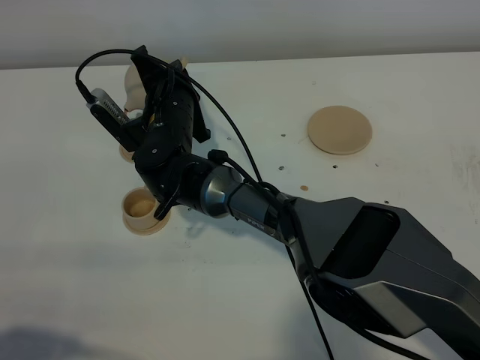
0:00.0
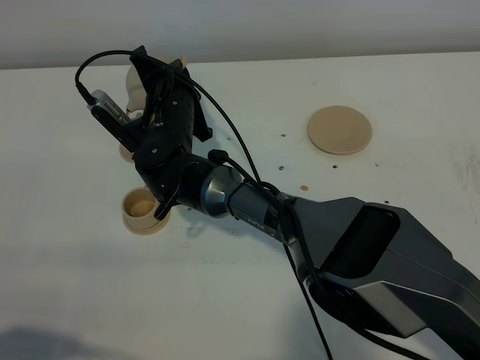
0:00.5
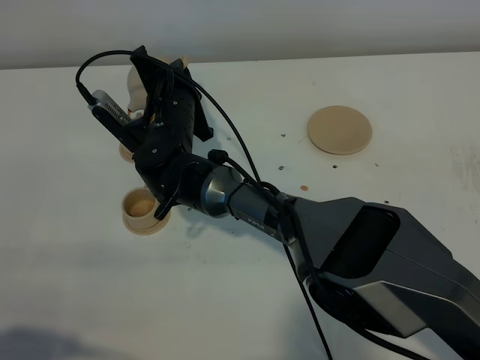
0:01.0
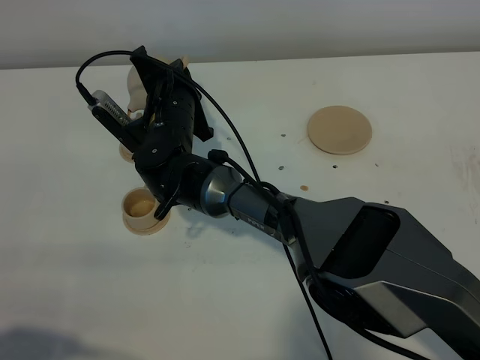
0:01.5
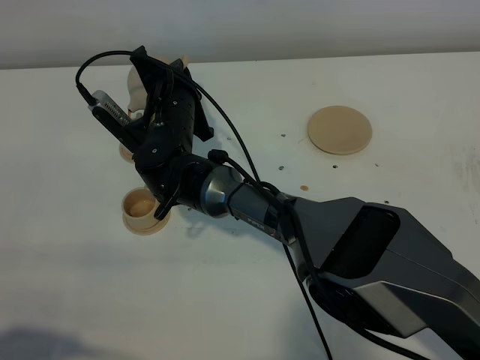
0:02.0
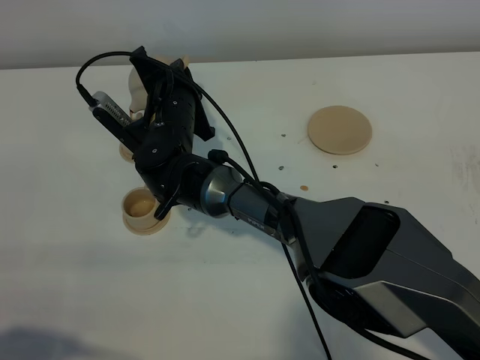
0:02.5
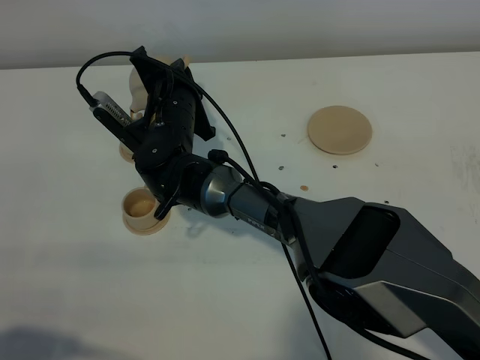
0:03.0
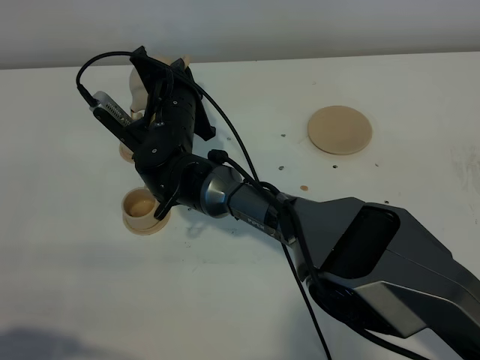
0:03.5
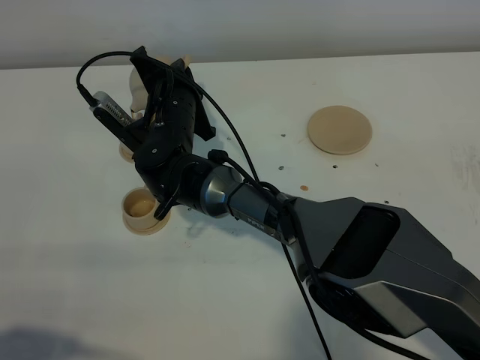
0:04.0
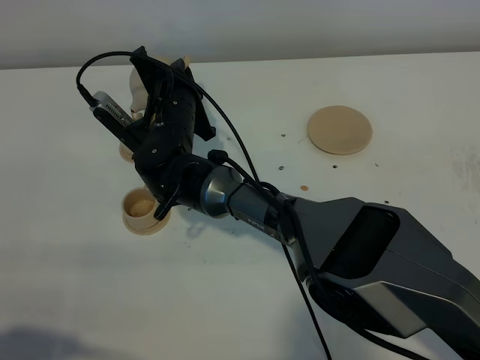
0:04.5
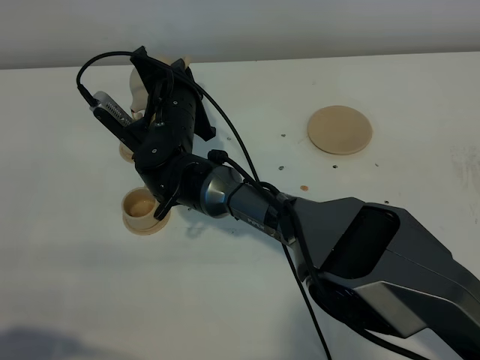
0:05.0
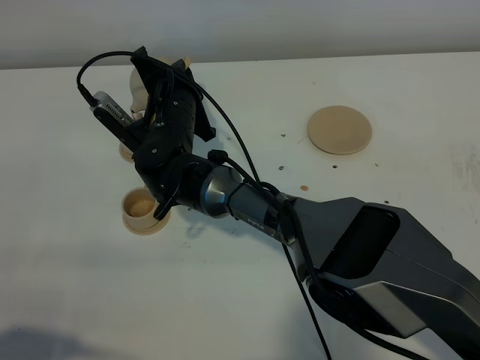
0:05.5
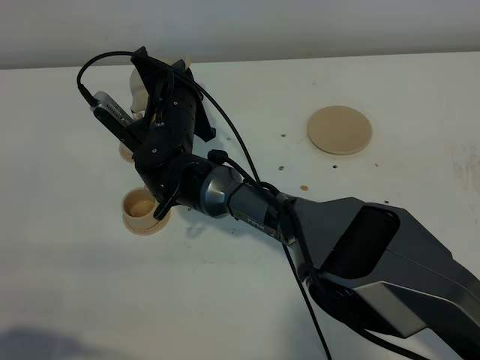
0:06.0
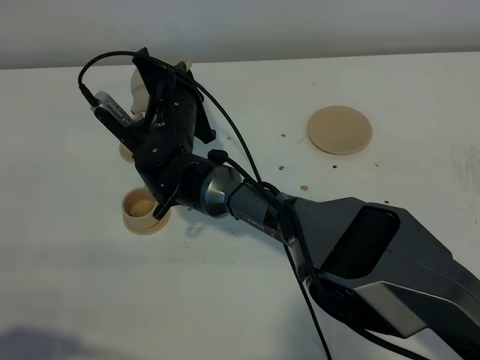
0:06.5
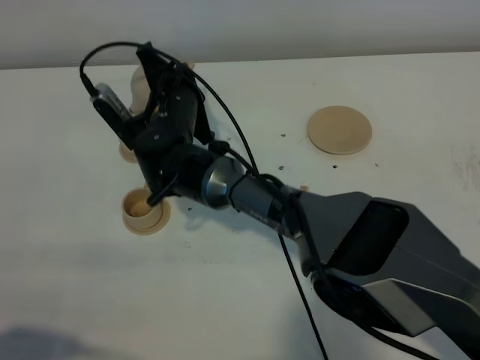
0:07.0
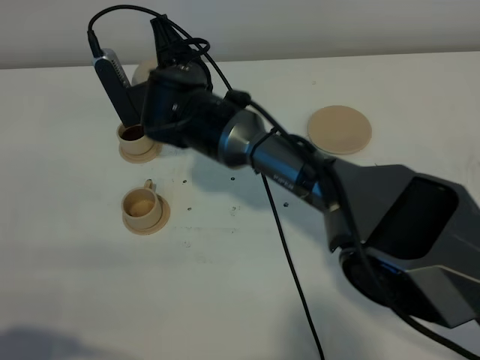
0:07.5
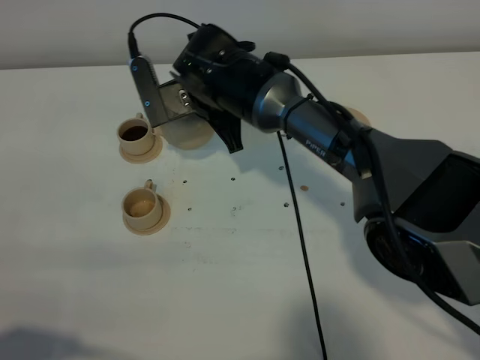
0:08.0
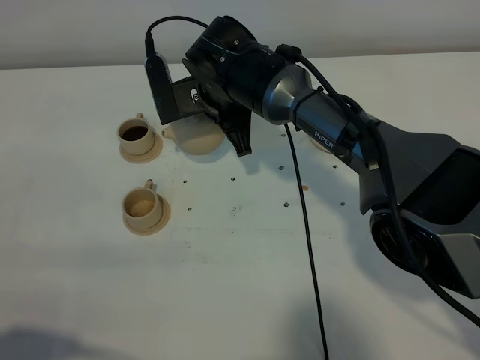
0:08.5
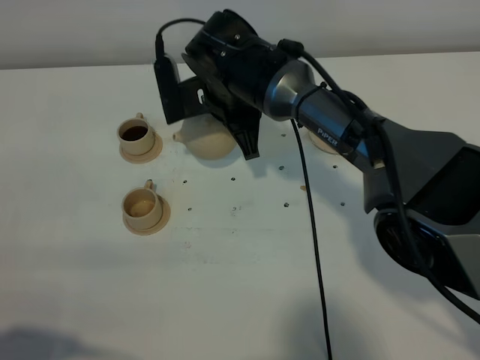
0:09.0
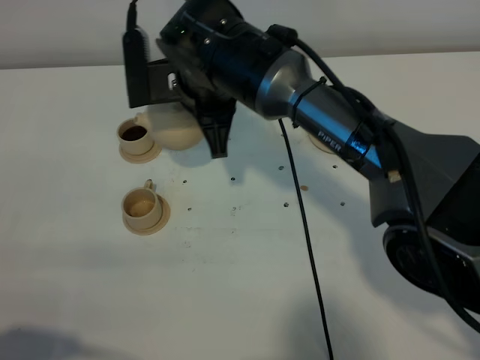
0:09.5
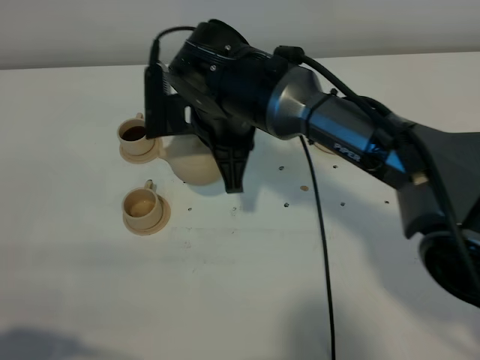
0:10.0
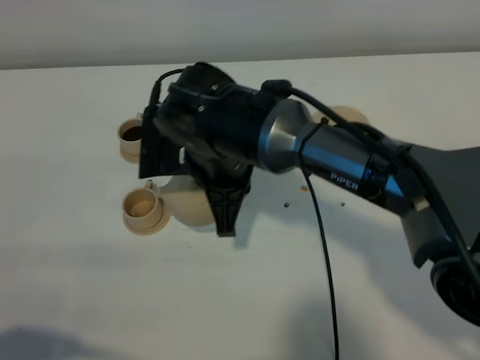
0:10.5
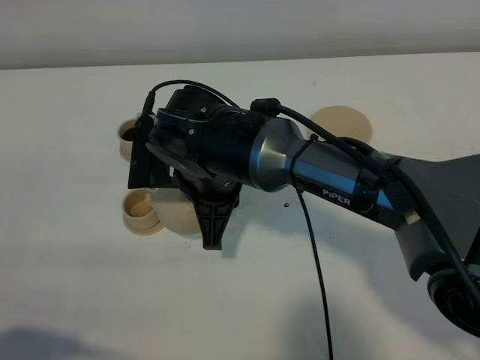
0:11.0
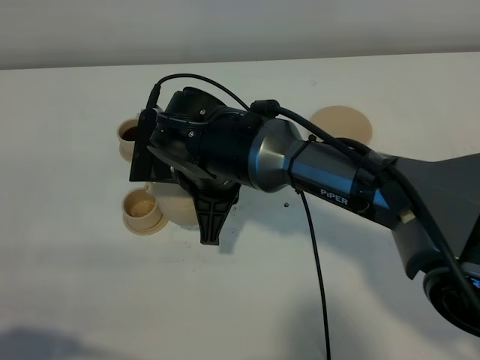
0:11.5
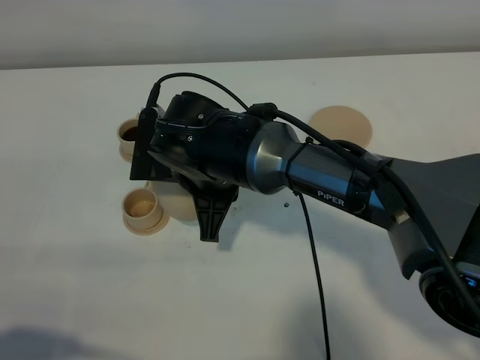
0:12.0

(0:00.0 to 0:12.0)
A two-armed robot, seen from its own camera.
Task of the whole recording: grasp the brown teapot and pour the tea into the two brown teacups one by one, put the brown teapot back in its original place.
Step, 0:00.0 - 0:07.5: Pour tea into the teacup with the right gripper.
0:00.0 - 0:06.0: Both grippers stay put.
0:06.0 - 0:08.0: The right gripper heads to the right and upward, covering approximately 10 cm.
0:08.0 - 0:10.0: The right gripper heads backward, covering some 5 cm.
0:10.0 - 0:12.0: The right gripper changes place by approximately 5 cm.

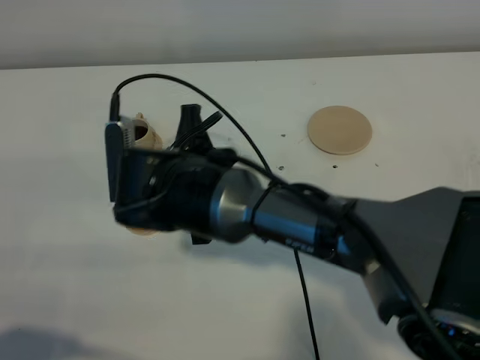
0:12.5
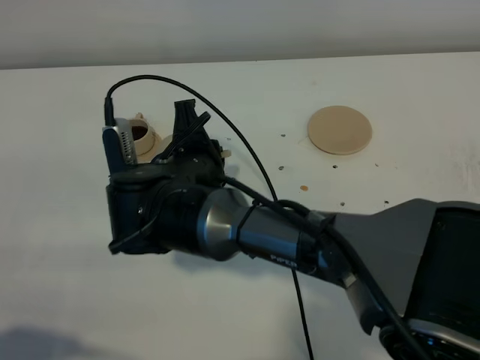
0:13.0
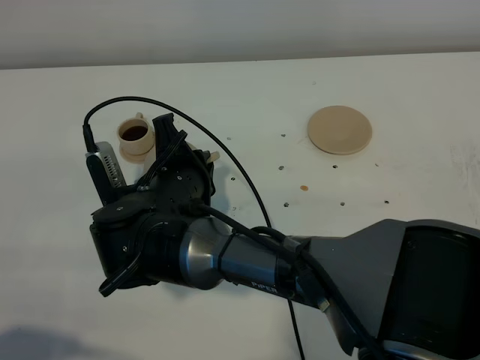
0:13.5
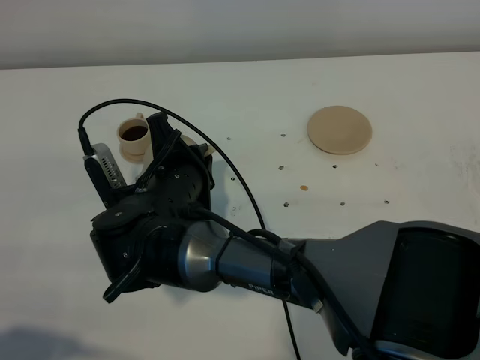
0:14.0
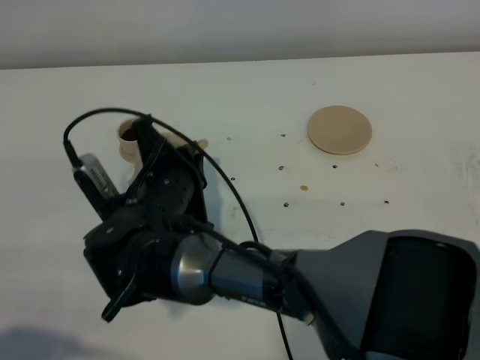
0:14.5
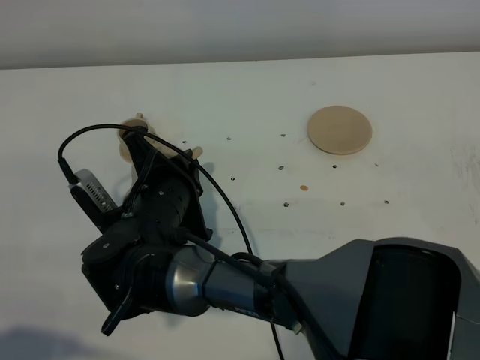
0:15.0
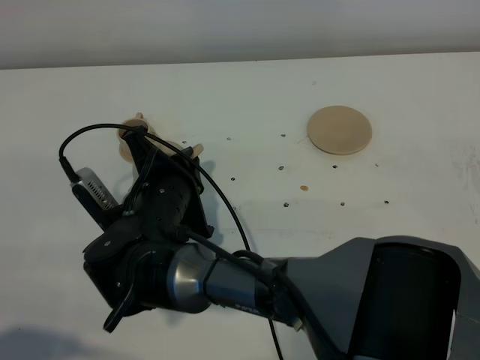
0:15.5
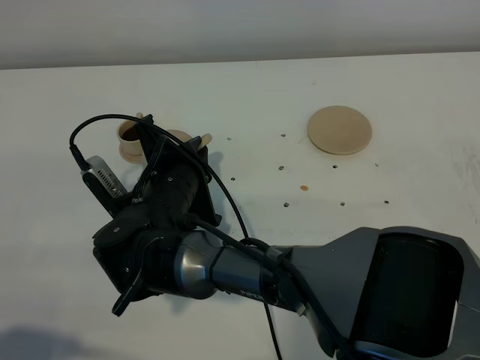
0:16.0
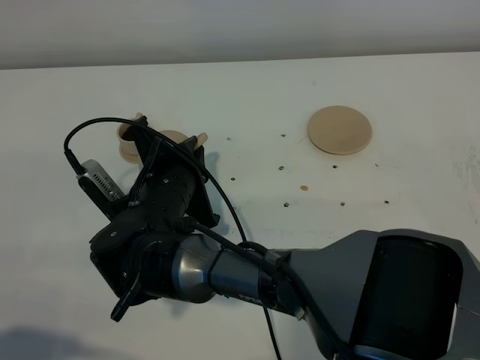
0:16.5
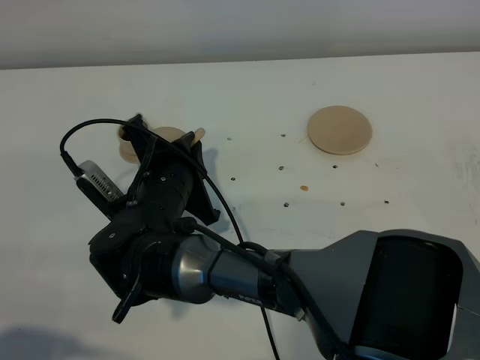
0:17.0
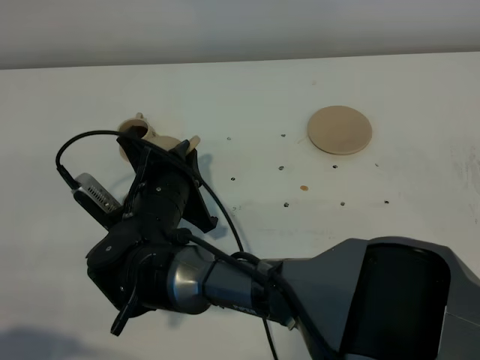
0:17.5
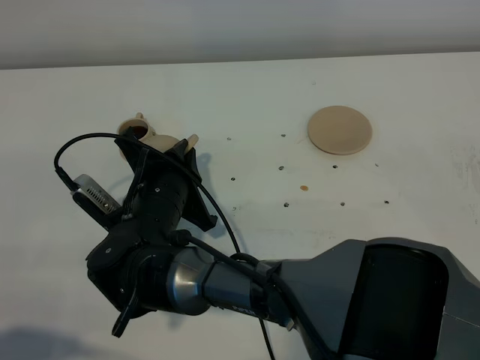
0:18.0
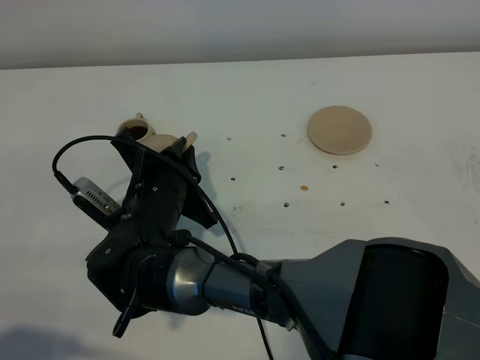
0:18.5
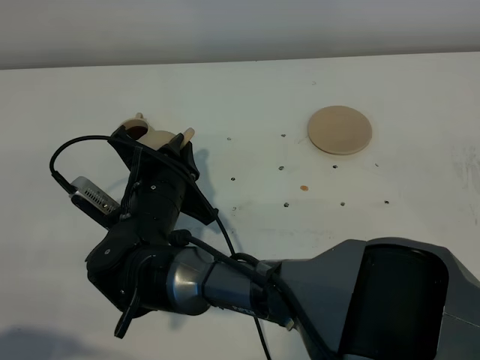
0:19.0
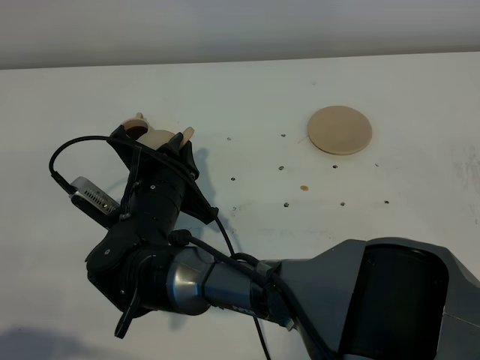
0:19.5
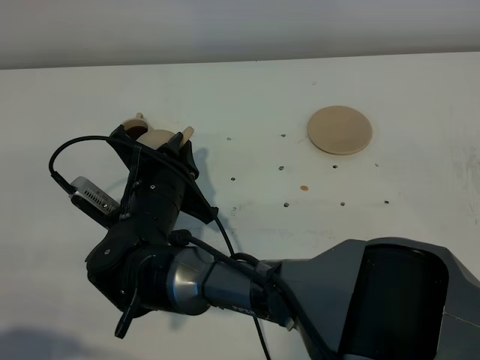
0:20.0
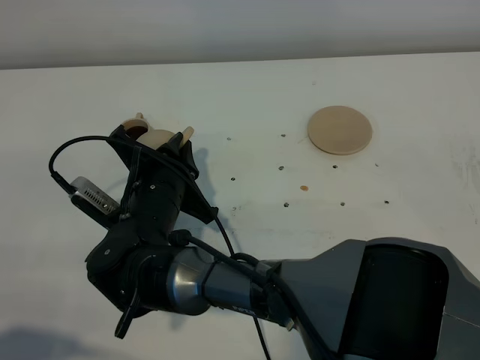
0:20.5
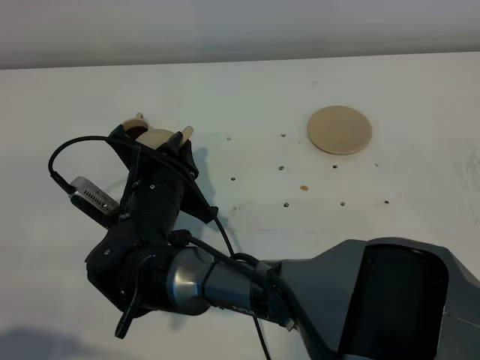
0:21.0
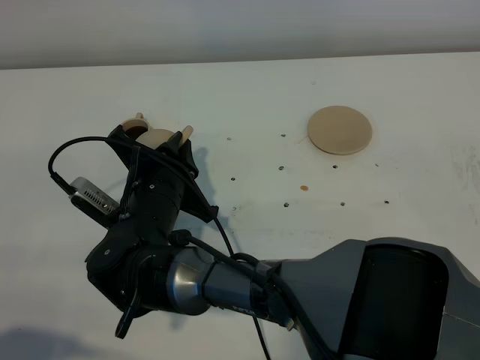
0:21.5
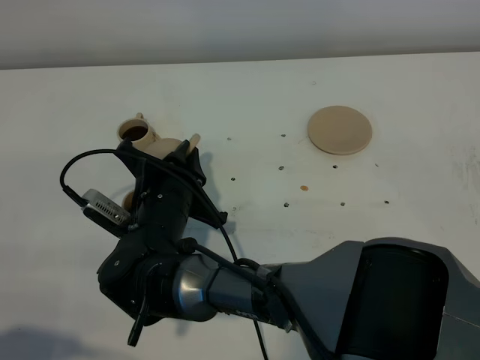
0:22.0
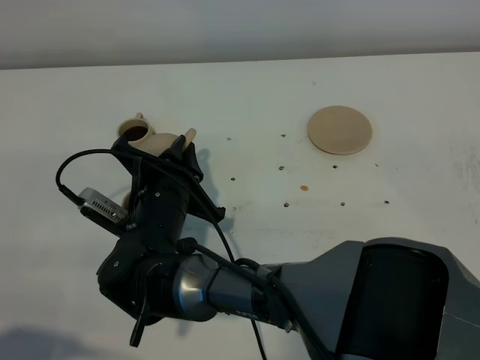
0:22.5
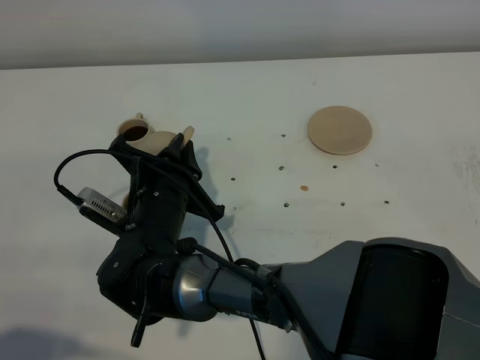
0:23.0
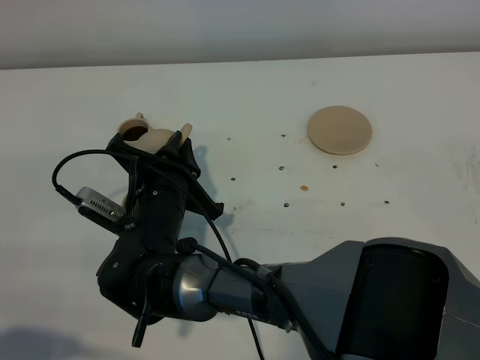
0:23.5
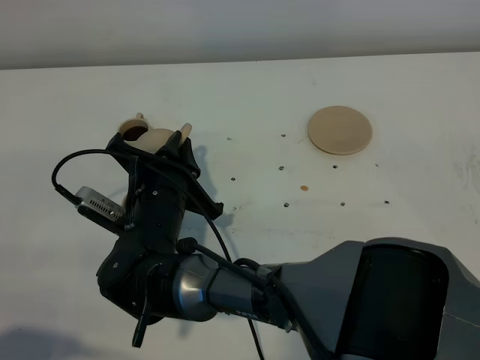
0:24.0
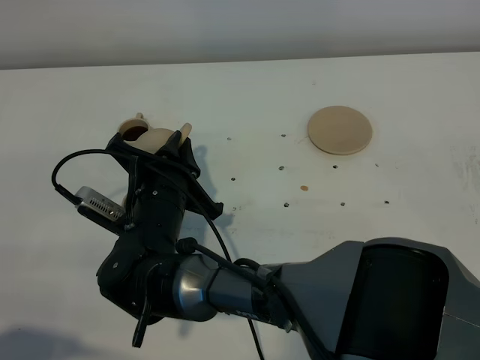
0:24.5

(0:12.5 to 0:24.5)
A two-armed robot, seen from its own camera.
Task of the whole recording: grasp the brown teapot and pour the tea into the two brown teacups one by one, put the brown teapot back in its original place.
0:14.5 - 0:18.5: The grippers stay close to where they were, moving slightly.
0:18.5 - 0:20.5: The two grippers keep their place.
0:20.5 - 0:22.5: The grippers stay close to where they were, moving slightly.
0:22.5 - 0:24.5: Neither gripper changes place.

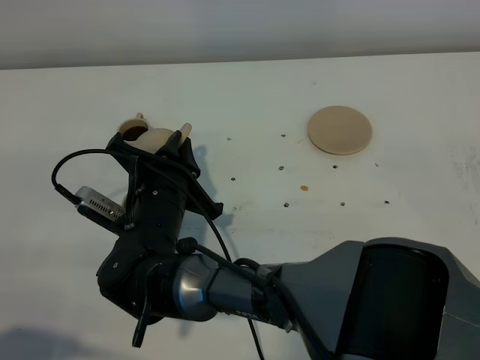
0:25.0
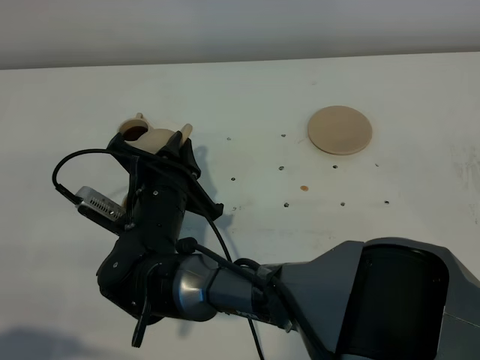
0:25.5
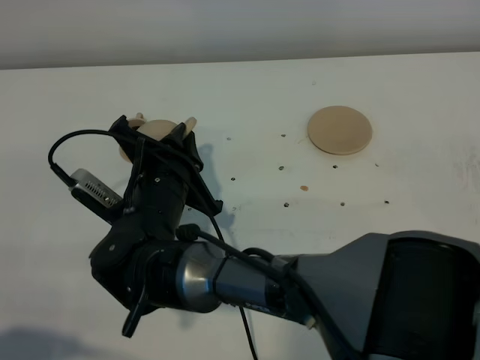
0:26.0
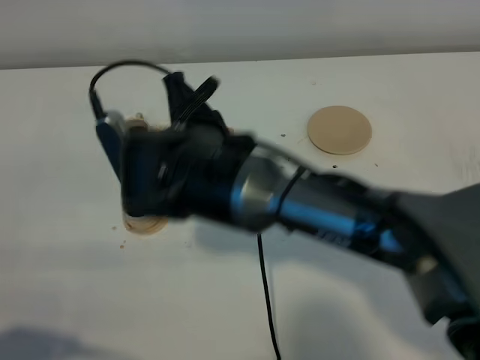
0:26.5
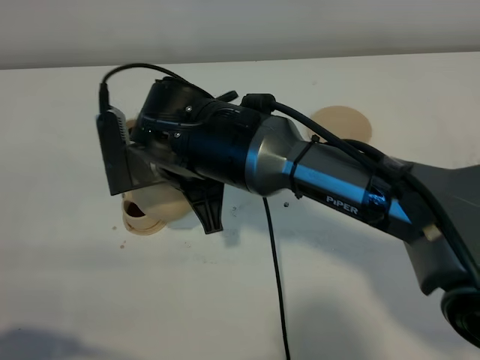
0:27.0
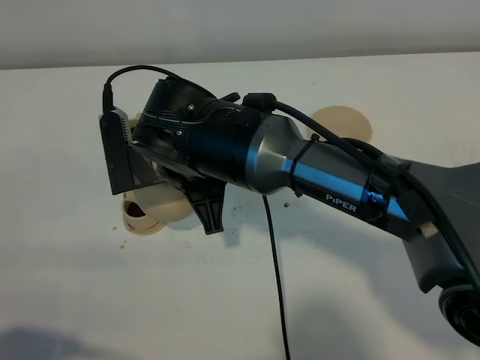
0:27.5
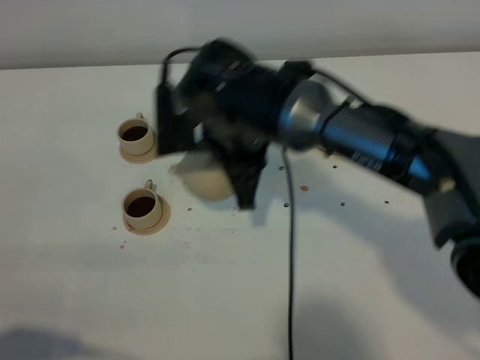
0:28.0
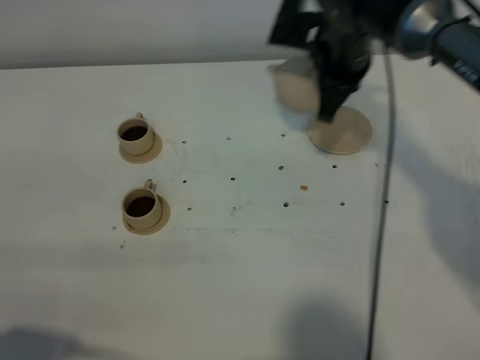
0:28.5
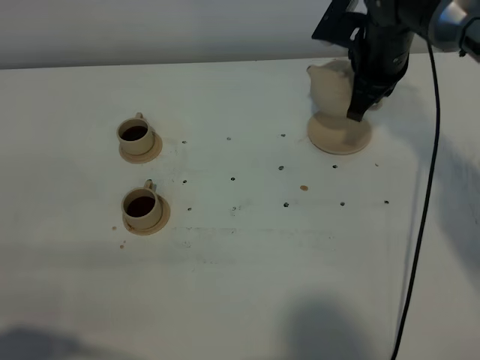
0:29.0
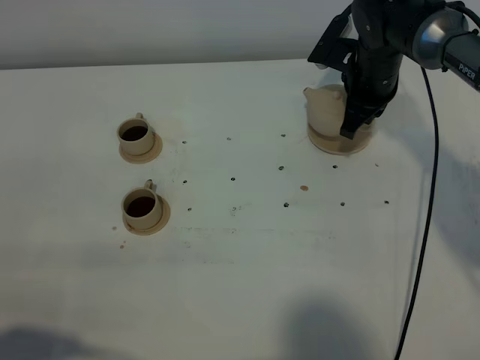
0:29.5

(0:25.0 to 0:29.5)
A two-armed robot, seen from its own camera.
Task of the whole recording: grasp the brown teapot and pour the tea into the two brown teacups one by one, put the brown teapot back in its original place.
0:25.0 - 0:27.0: The right gripper goes some 10 cm upward.
0:27.0 - 0:29.5: The right gripper travels to the right and forward by about 30 cm.
